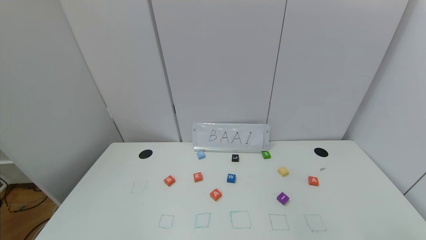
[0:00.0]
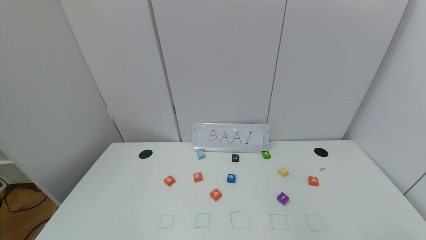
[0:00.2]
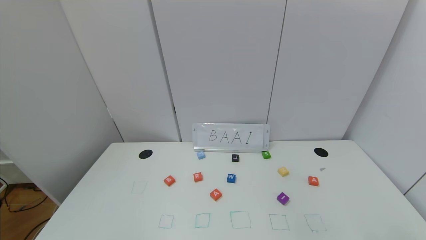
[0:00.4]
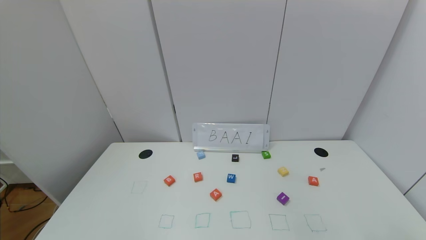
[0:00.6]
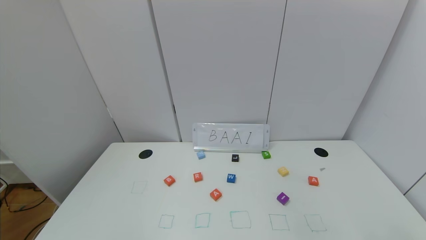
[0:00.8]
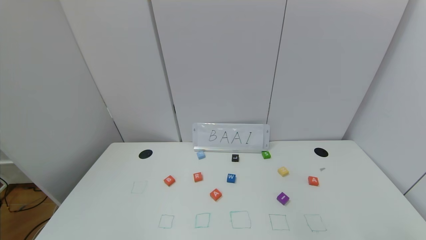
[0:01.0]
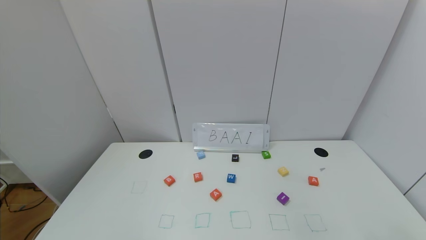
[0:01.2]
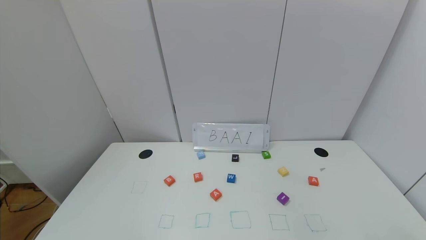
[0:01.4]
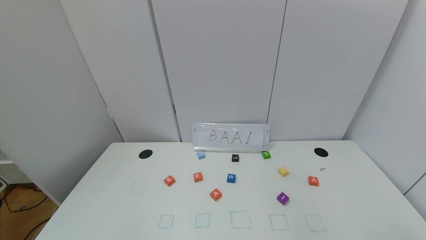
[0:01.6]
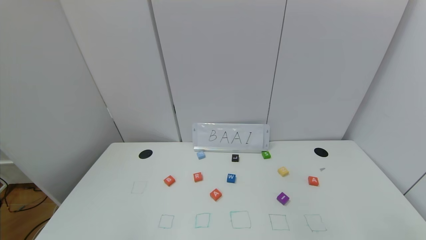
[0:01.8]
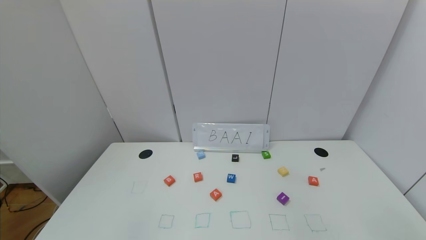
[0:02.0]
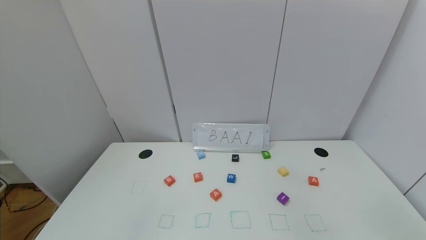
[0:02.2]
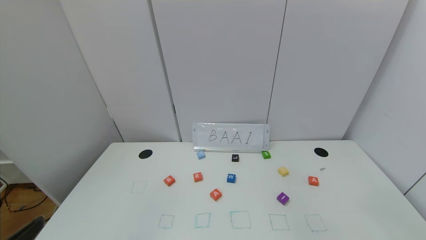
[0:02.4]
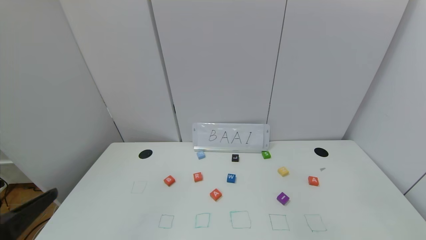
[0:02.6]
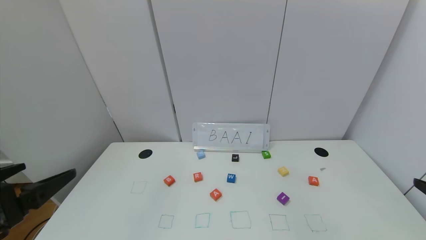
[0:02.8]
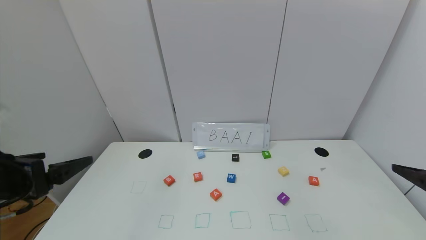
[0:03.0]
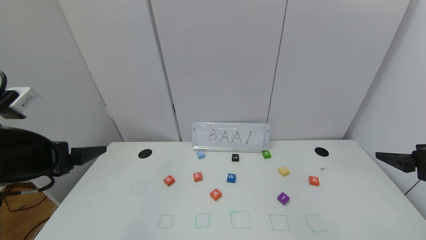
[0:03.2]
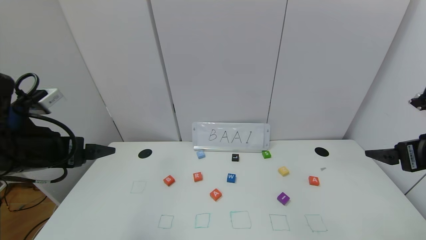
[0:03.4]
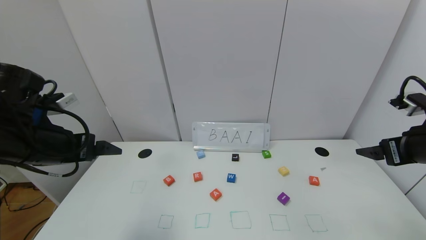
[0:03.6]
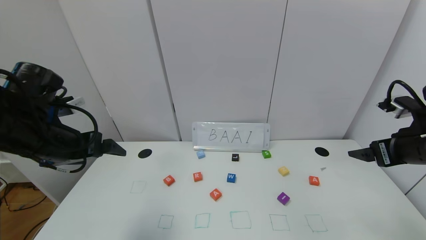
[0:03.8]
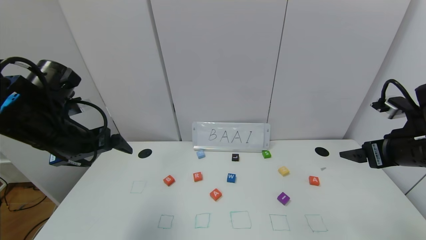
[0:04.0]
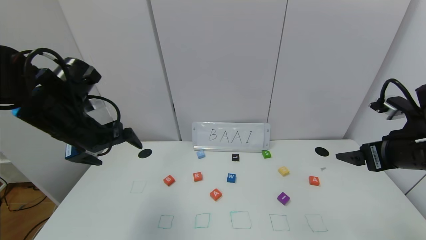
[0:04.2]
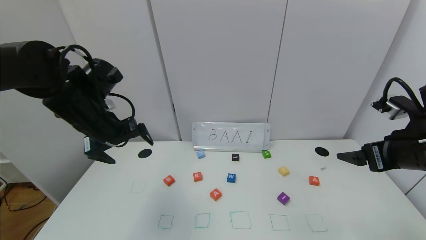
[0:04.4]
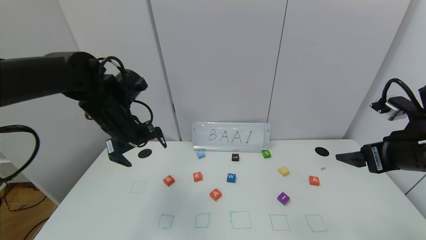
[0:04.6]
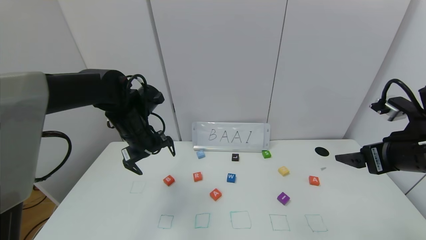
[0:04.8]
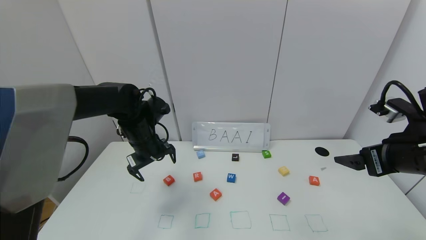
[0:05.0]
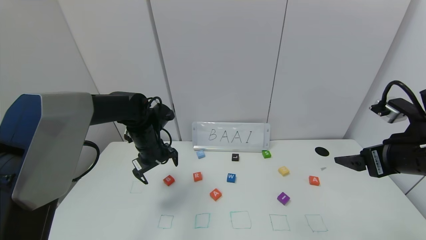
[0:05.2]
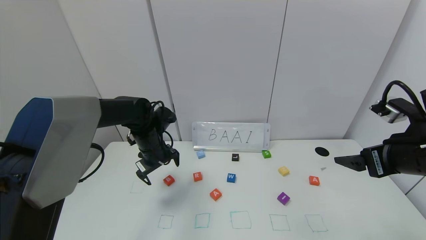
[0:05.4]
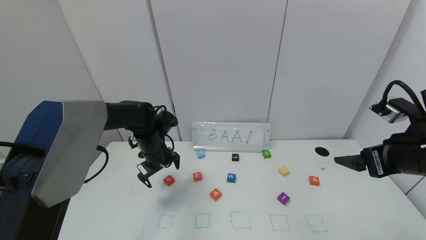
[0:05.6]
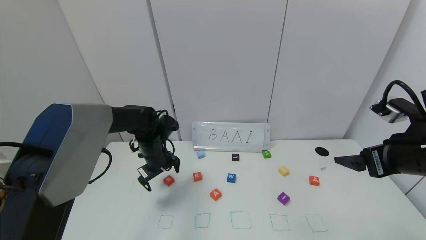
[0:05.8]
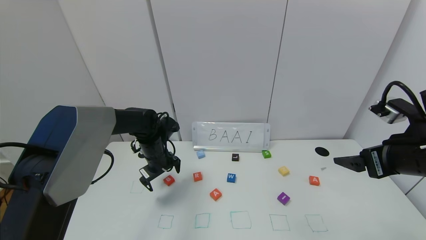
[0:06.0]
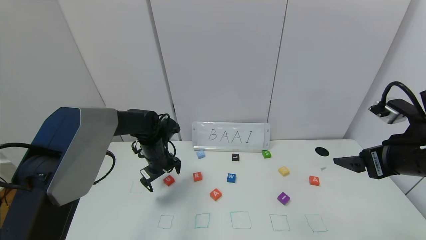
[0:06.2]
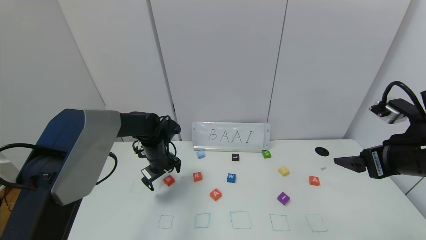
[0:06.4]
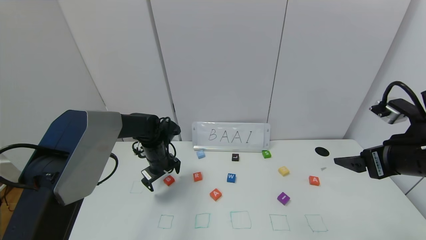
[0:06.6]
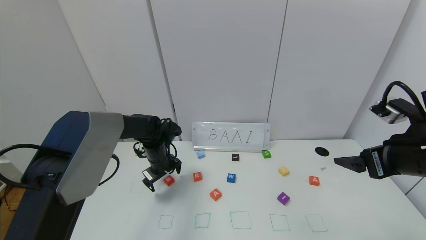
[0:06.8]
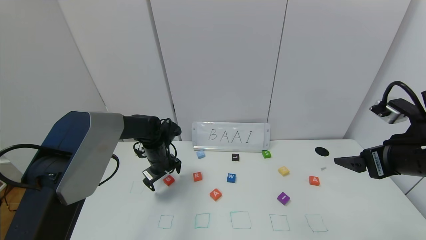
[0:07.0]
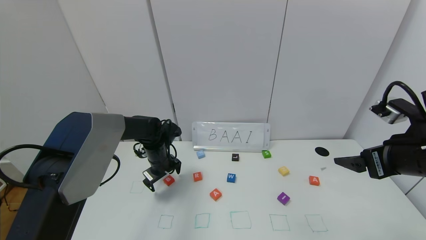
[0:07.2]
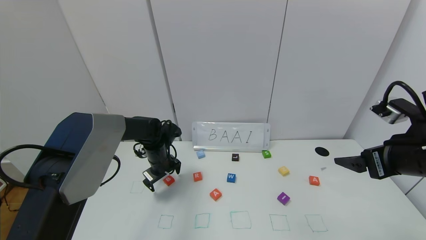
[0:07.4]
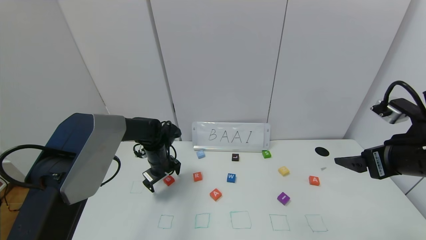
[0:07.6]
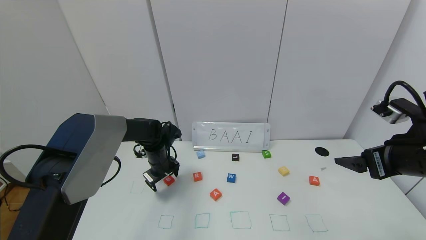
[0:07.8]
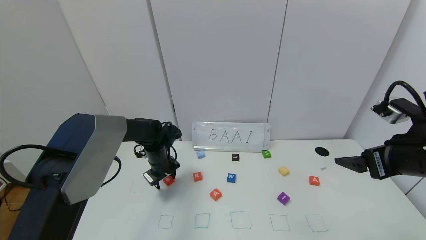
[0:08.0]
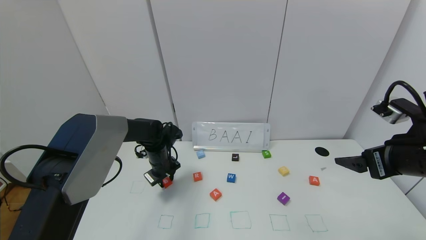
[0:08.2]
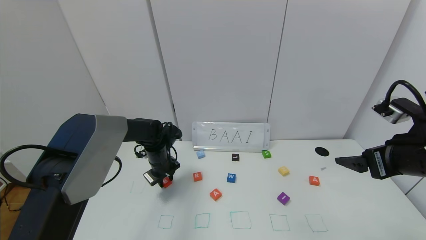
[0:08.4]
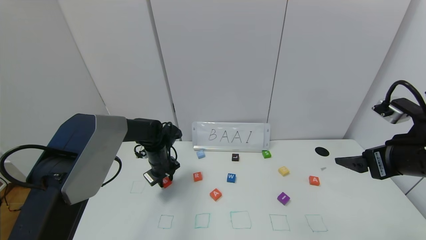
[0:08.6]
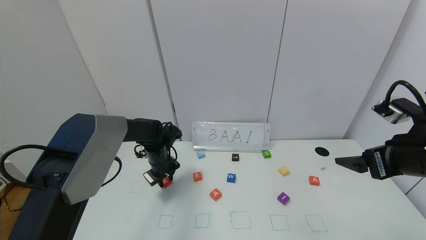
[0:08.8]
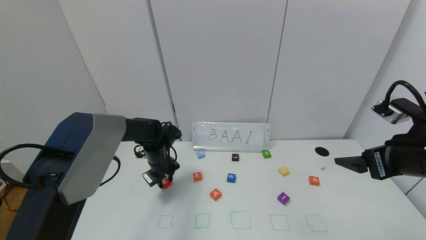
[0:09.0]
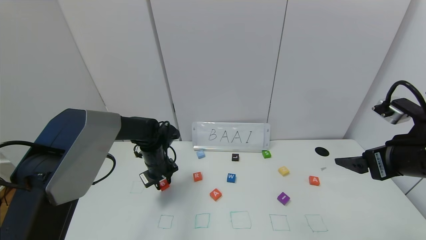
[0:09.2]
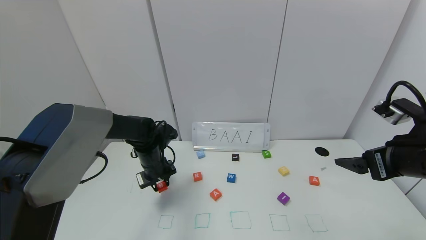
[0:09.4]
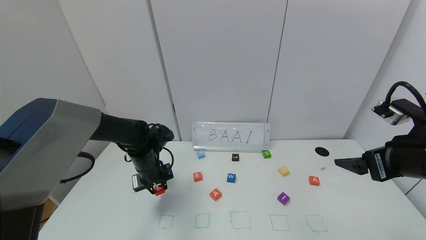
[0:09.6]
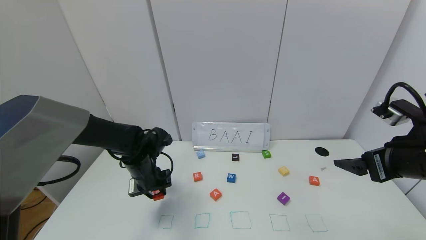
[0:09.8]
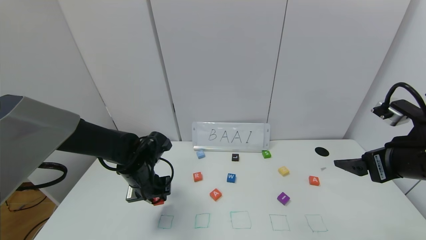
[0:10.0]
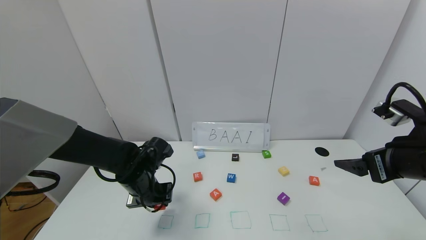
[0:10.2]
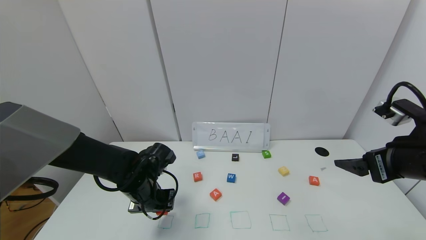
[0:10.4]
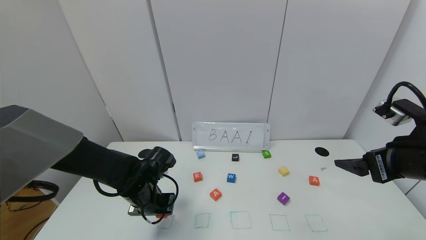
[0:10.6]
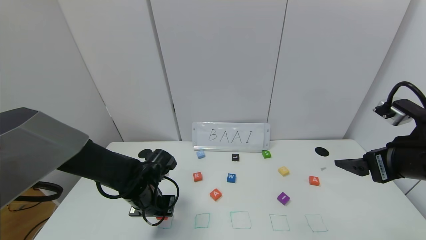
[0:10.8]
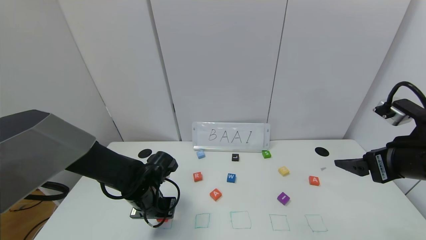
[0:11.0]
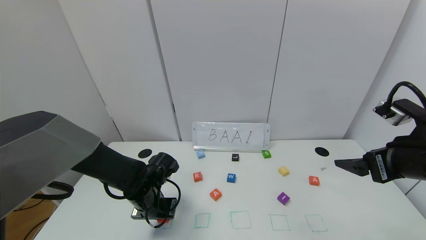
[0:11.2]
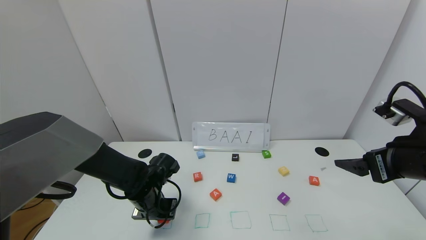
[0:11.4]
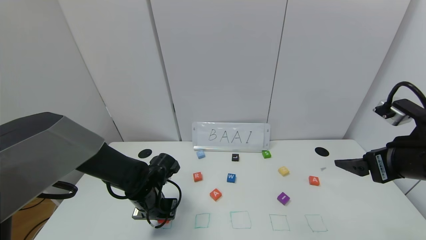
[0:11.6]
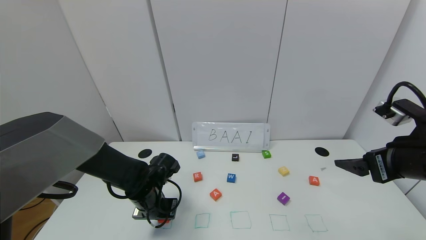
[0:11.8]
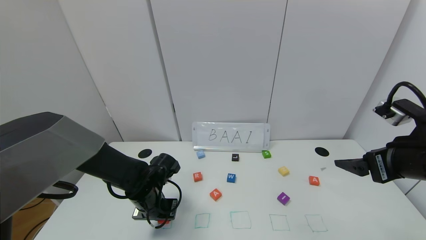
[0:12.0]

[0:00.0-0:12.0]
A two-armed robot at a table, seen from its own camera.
Task of the whole recording: use the gripper to find blocks with the letters b, a, a, and i on the table and arrange them into BAAI, then find r and N and turn the arranged baai into brian.
0:01.6 to 0:03.0: The left gripper travels forward and upward by roughly 20 cm.
0:03.0 to 0:04.4: The left gripper heads forward, covering about 20 cm; the right gripper heads forward, covering roughly 10 cm.
0:04.4 to 0:06.0: The left gripper moves downward and forward, roughly 20 cm.
0:06.0 to 0:07.6: There are only small adjustments of the grippers.
0:07.6 to 0:09.0: The left gripper closes up.
0:09.0 to 0:10.4: The left gripper is displaced backward by about 15 cm.
0:10.4 to 0:12.0: The grippers move only a little.

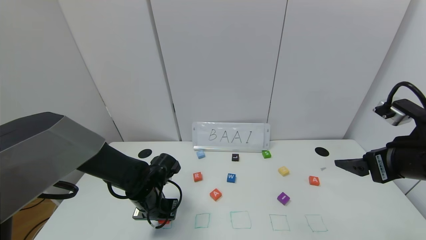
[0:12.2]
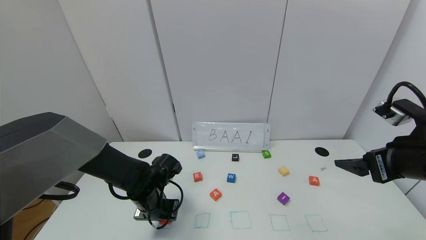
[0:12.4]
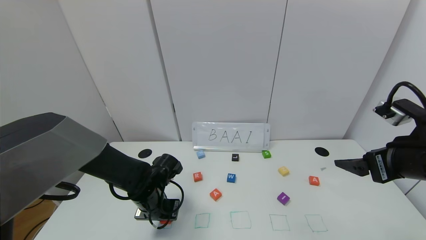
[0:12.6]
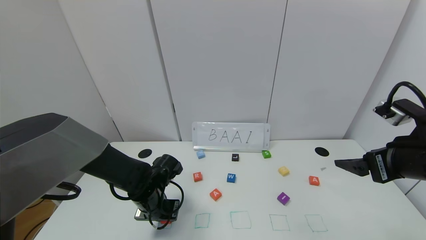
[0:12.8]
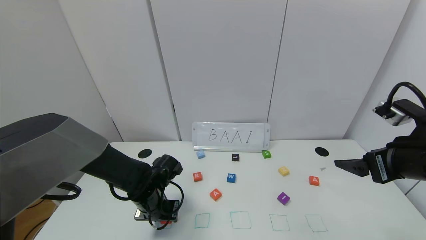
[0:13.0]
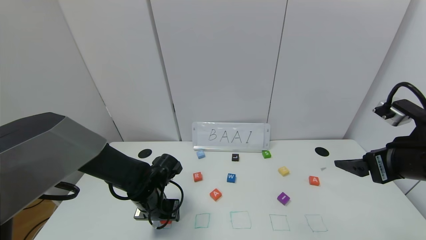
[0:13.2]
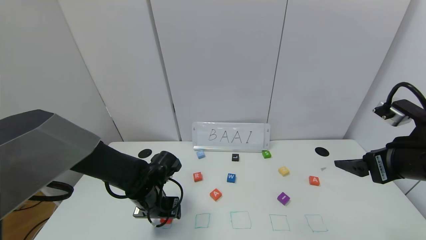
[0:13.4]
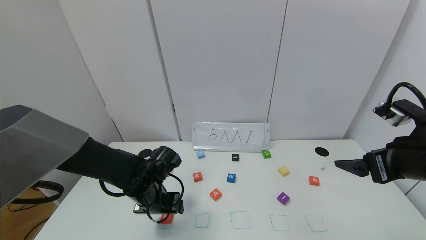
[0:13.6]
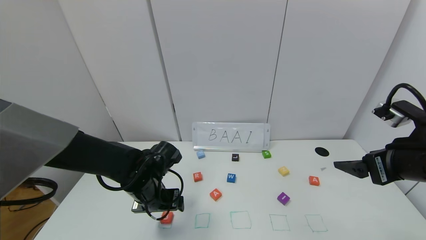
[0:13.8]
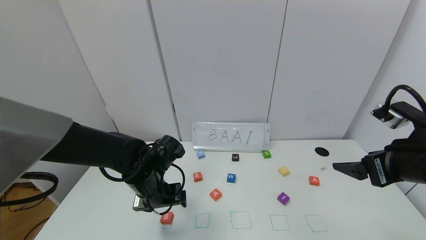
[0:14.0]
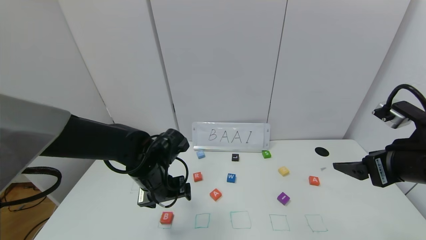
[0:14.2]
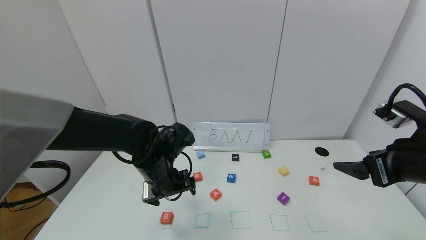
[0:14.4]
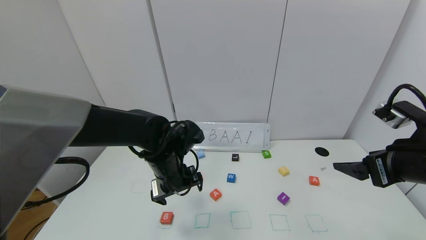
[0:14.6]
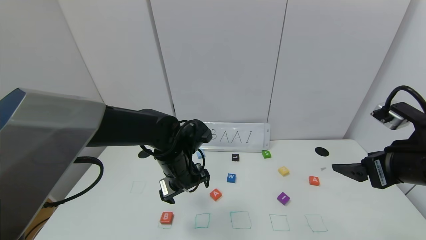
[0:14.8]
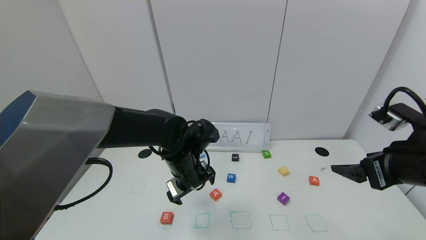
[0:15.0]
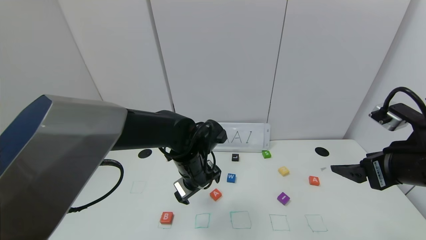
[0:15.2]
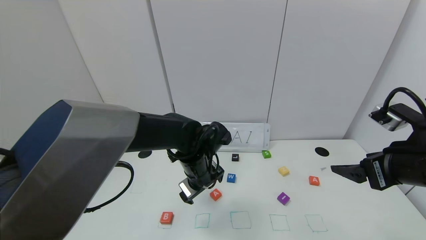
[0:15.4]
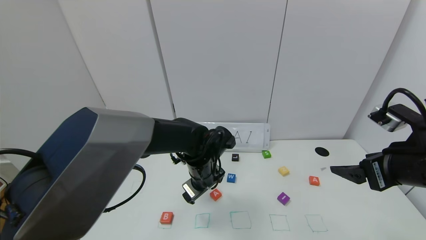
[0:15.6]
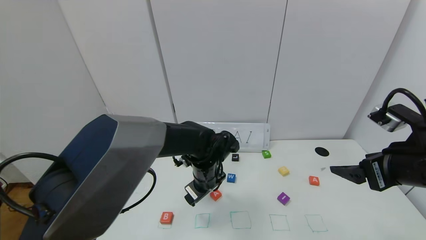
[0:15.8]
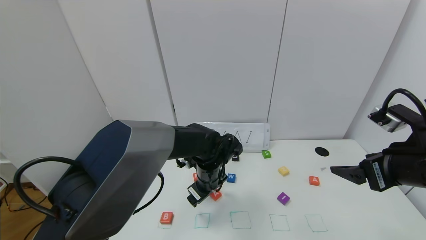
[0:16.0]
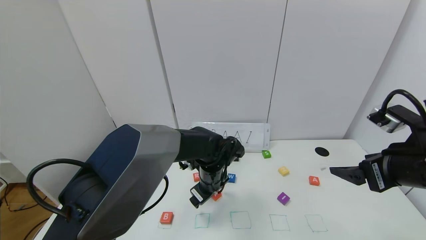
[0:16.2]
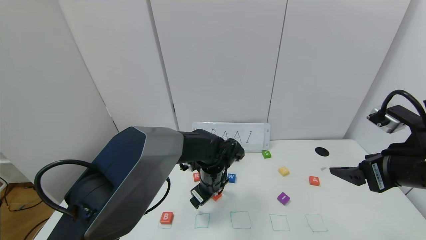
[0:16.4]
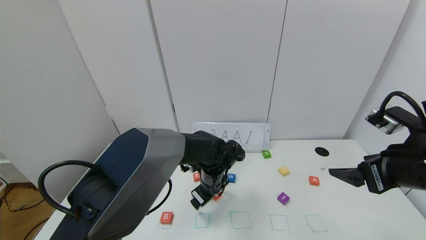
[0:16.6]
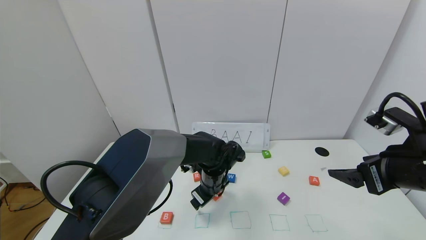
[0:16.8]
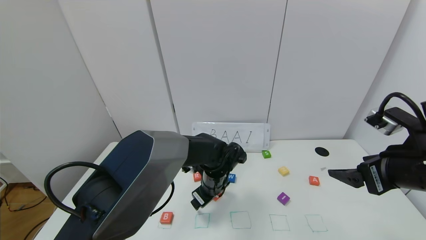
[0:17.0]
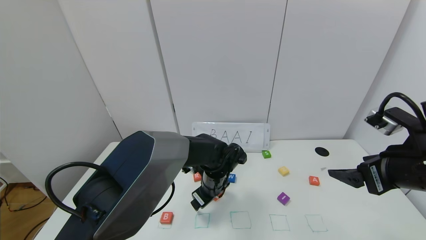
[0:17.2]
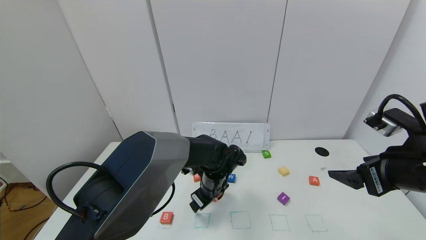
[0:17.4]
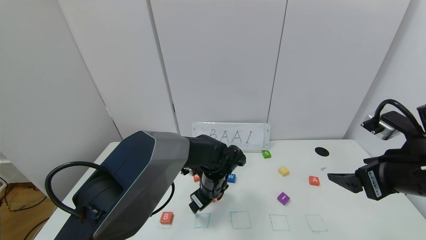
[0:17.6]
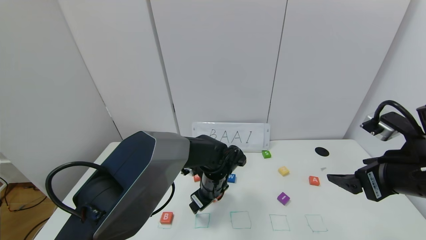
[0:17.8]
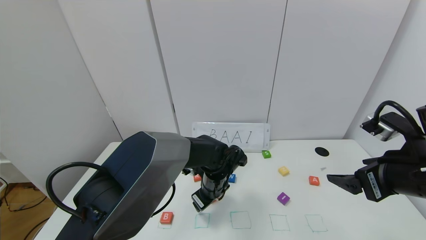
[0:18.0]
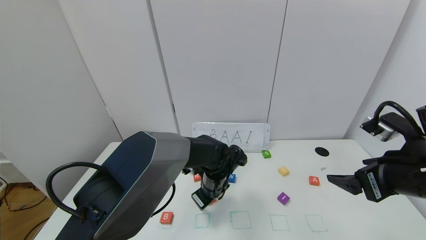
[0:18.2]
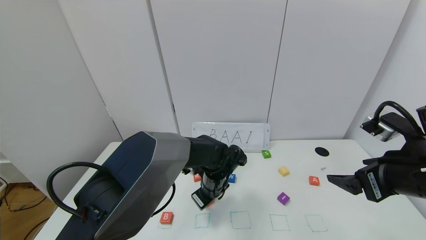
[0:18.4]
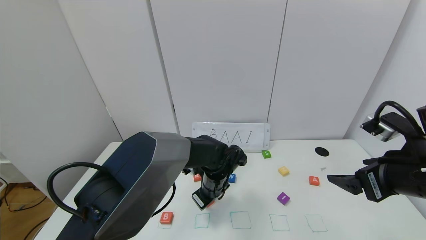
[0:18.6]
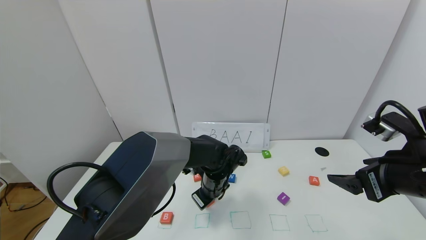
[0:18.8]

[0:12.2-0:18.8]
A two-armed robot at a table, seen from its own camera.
Task of the whole recording: use the gripper to find blocks with the letters b, a, a, and i on the table and arrange them into BAAI, then find r and N and turn the arranged baai into brian.
0:12.2 to 0:13.8: The left gripper opens.
0:13.8 to 0:15.4: The left gripper travels to the right by approximately 10 cm.
0:15.4 to 0:17.2: The left gripper goes roughly 5 cm downward.
0:17.2 to 0:18.8: The left gripper closes.
